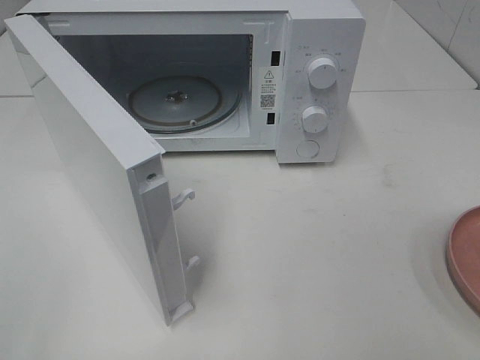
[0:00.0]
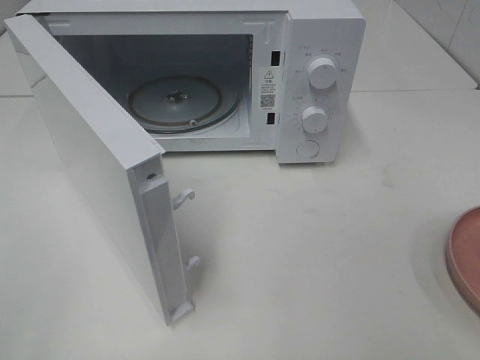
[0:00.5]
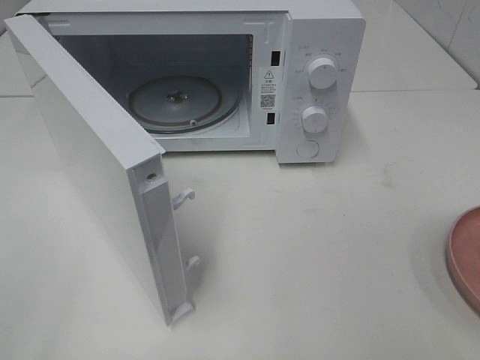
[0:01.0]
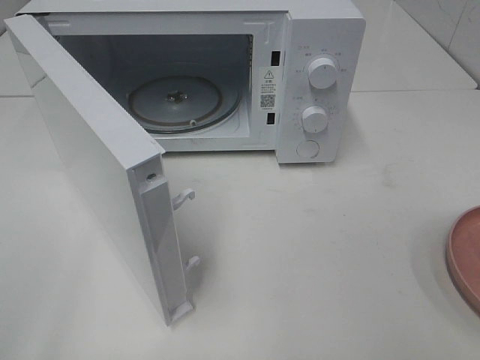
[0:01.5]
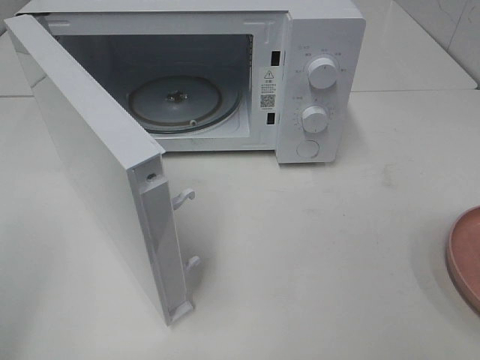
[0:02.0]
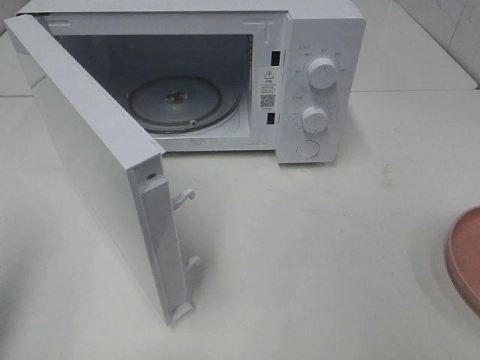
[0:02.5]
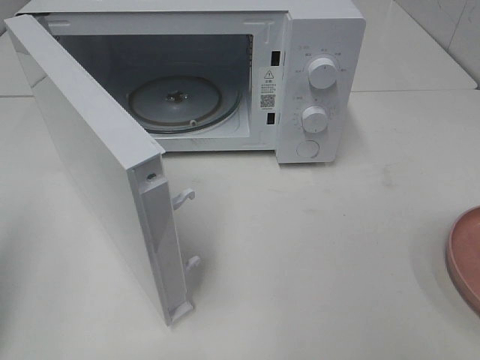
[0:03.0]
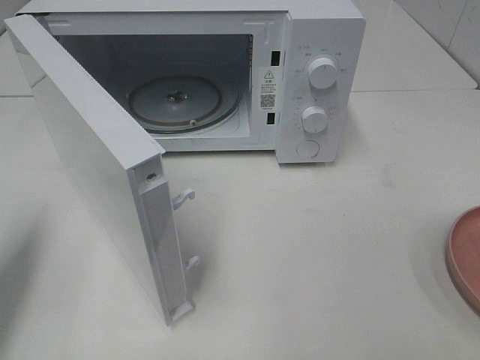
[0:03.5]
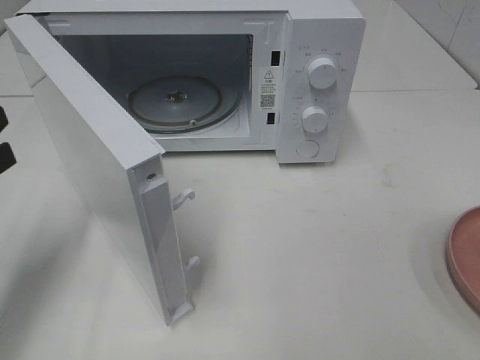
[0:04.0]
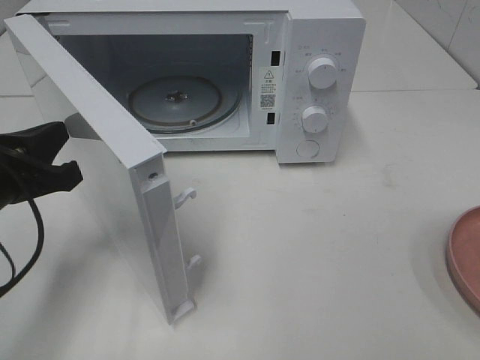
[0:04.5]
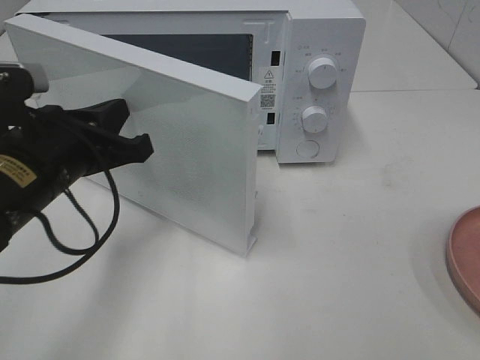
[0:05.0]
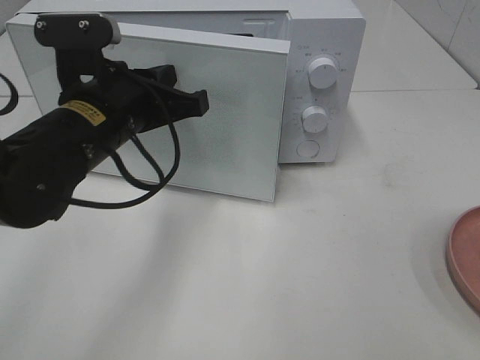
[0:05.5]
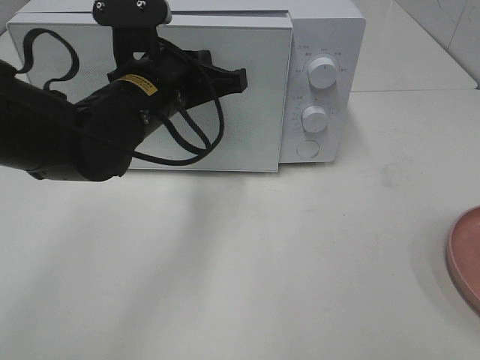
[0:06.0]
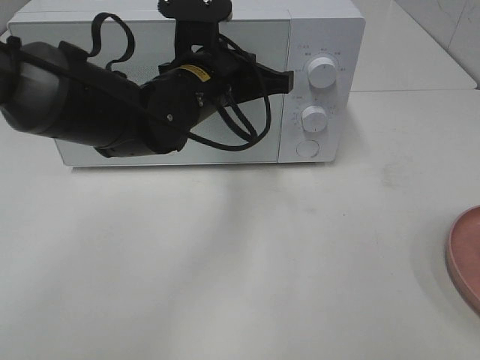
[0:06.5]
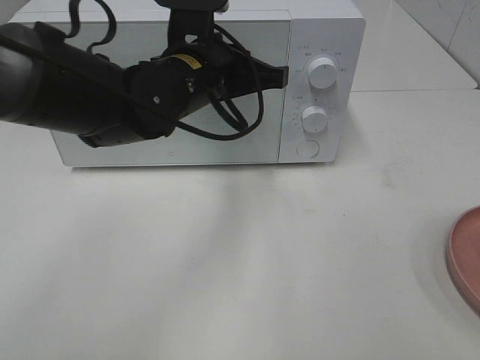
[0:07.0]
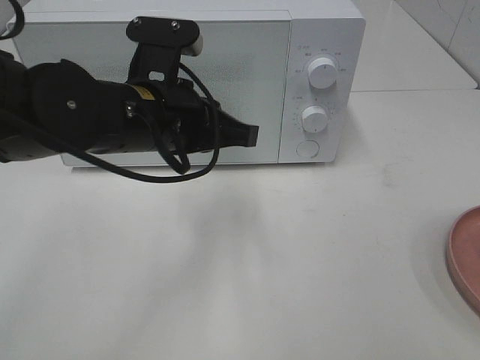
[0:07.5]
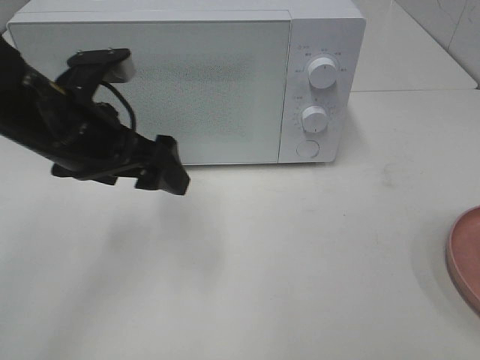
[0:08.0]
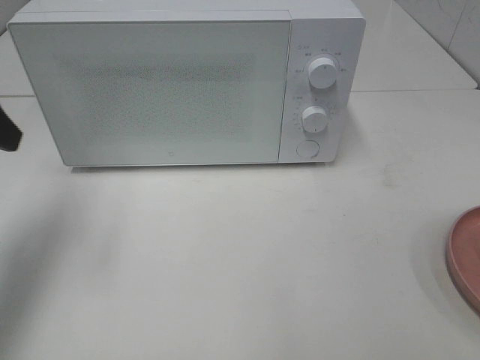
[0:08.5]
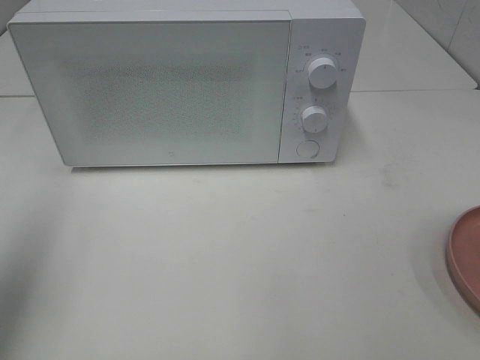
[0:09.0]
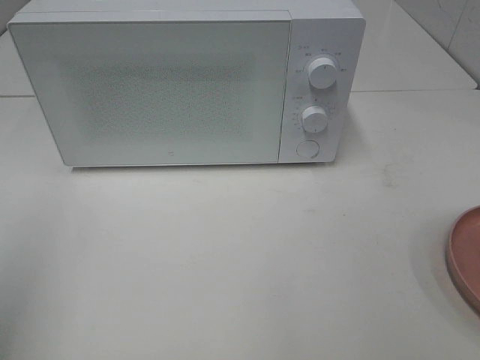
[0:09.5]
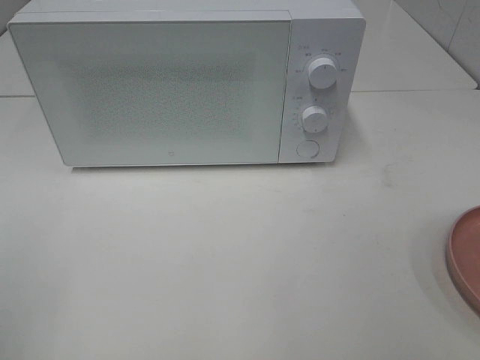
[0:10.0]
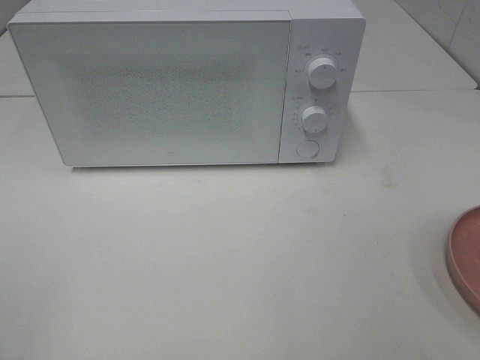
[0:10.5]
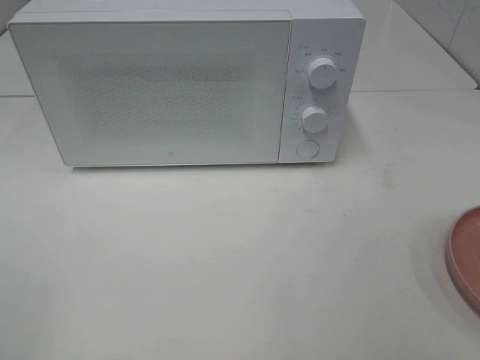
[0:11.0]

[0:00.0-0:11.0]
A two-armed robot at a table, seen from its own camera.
Task of the whole recording: Heat the burger.
Step, 0.0 to 7.0 s: Left hand: close the microwave door.
2.0 to 3.5 s: The left gripper is displaced forward and downward by some 15 cm, and closes its fingers.
3.5 to 5.5 s: The left gripper is displaced to the right and forward by approximately 20 cm.
7.5 to 9.0 s: The left gripper heads to the left, upward and backward, covering some 30 cm, and opens its fingers.
9.0 to 11.0 s: The left gripper is displaced backward by about 15 cm.

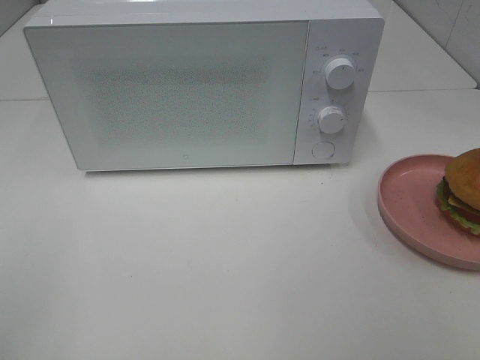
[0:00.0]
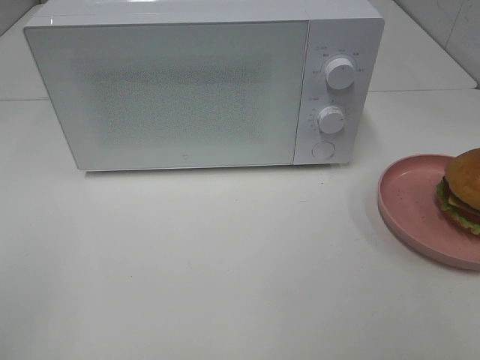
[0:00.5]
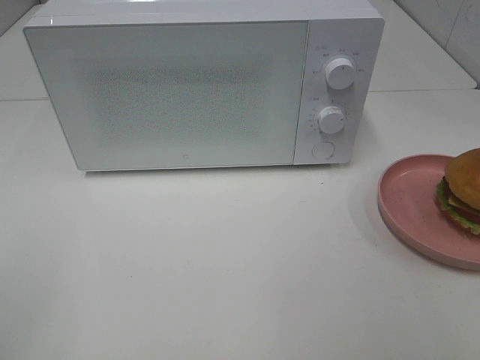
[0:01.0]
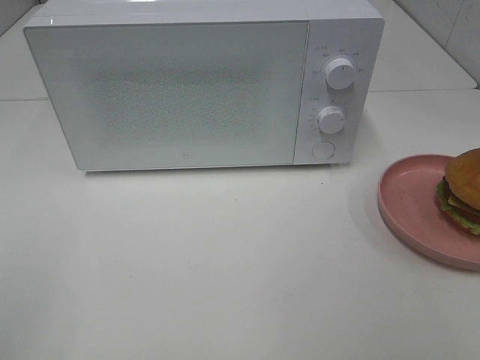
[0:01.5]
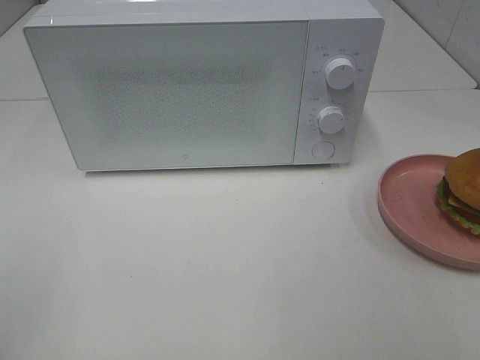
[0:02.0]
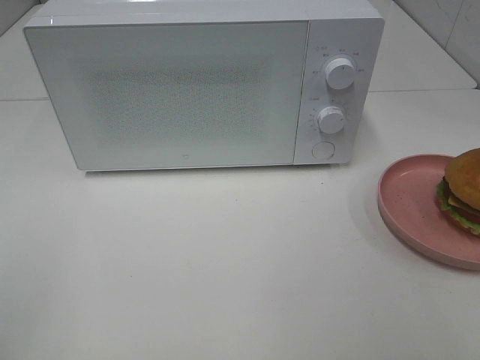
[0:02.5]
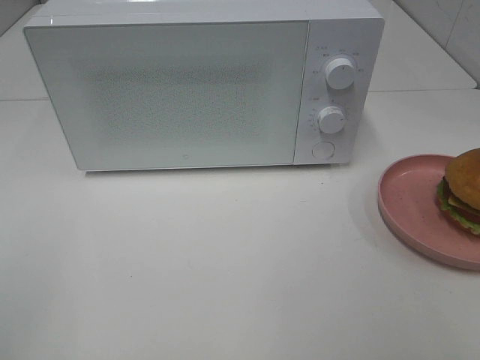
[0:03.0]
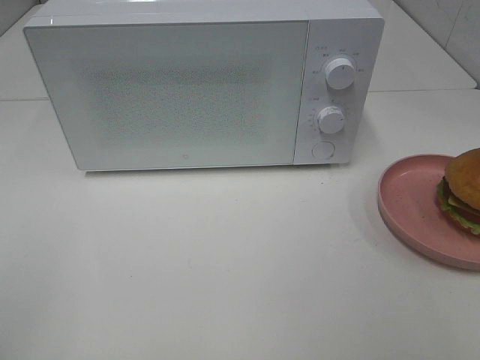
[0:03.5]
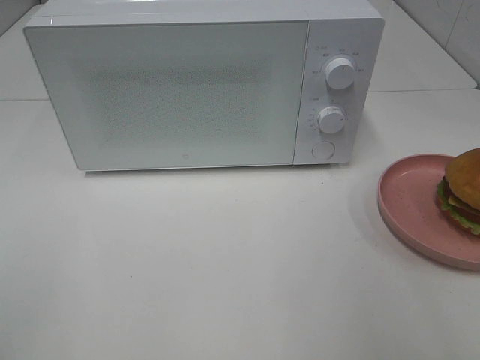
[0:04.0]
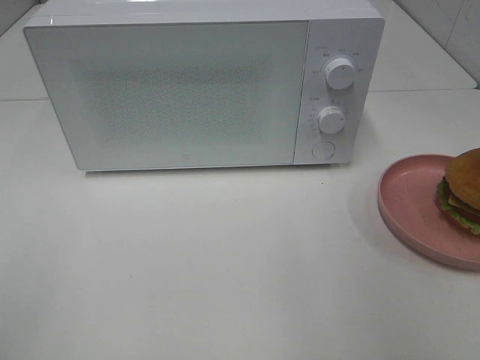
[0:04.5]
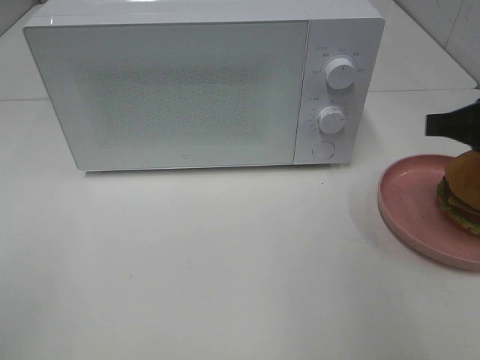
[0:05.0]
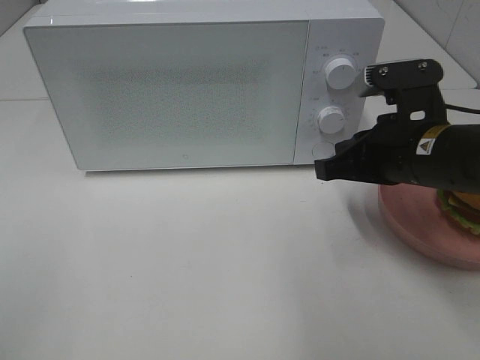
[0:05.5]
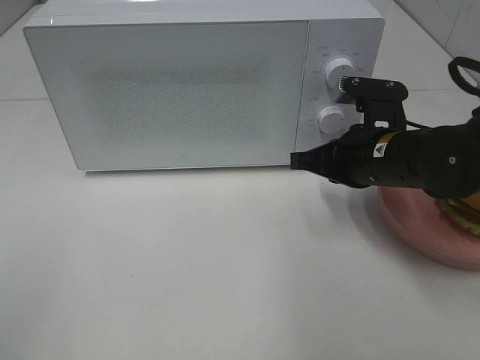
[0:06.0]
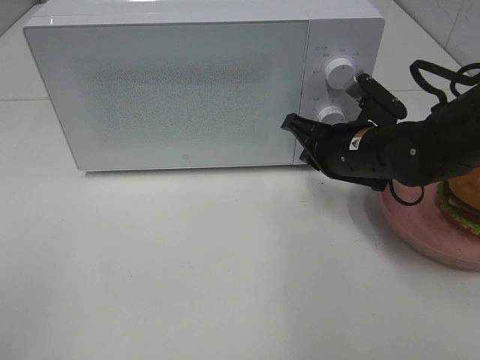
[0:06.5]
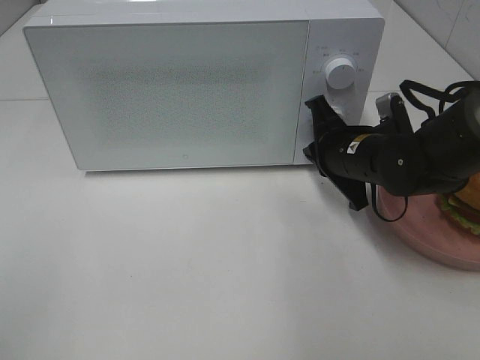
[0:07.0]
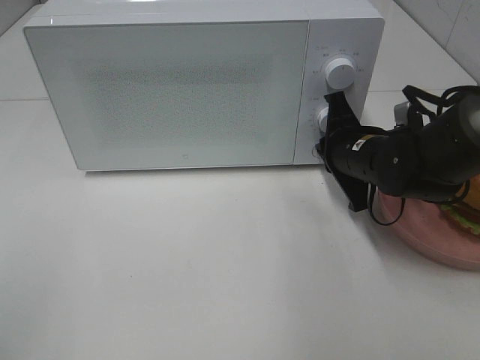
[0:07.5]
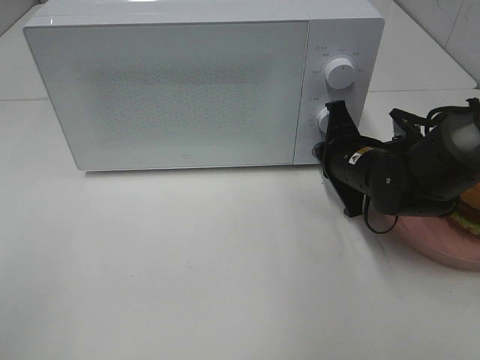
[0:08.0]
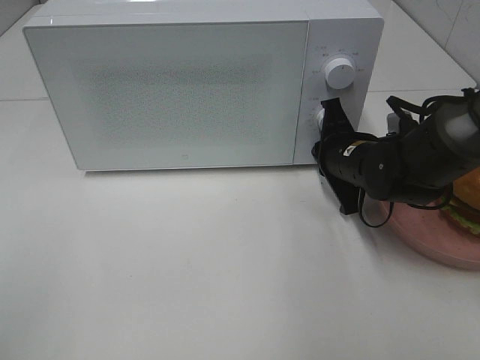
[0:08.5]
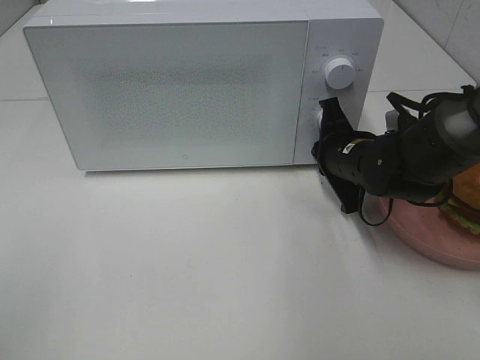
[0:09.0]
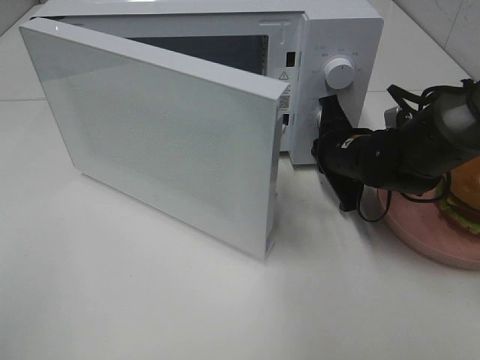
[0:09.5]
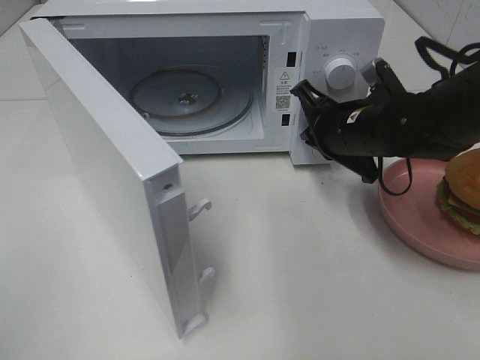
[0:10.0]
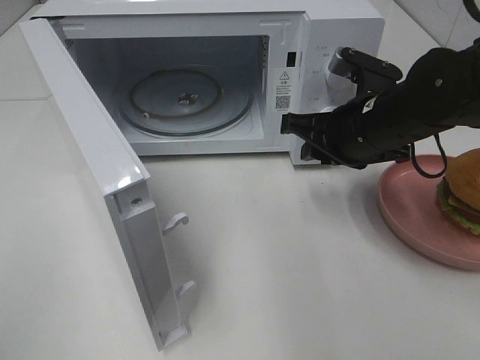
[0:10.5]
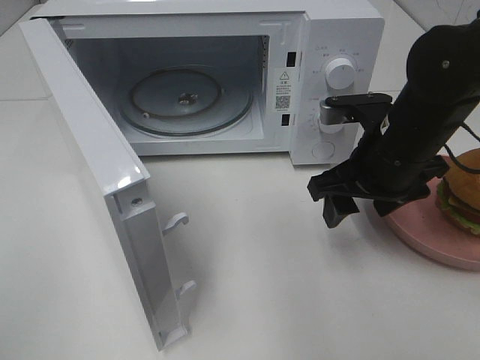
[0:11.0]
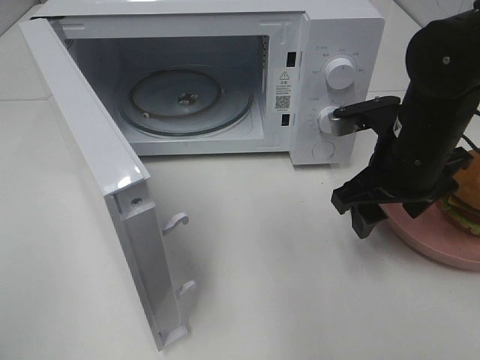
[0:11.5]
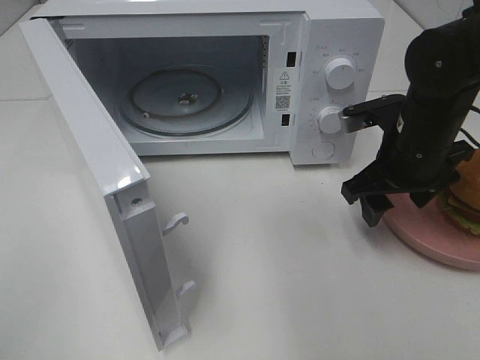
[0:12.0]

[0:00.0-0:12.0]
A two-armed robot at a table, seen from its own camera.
Task of the whole recording: Heat the burger.
Step, 0.0 to 9.5 s: Right hand: press the switch.
0.0 to 2.0 s: Both grippers stay put.
4.0 to 6.0 s: The right gripper moves forward, downward and to the left, roughly 30 cm, and closes.
6.0 to 8.0 s: The right gripper shifts by approximately 5 cm.
8.0 to 10.0 s: The right gripper shifts approximately 5 cm upward.
10.0 to 12.0 s: The right gripper moves roughly 5 cm, and opens its fingers.

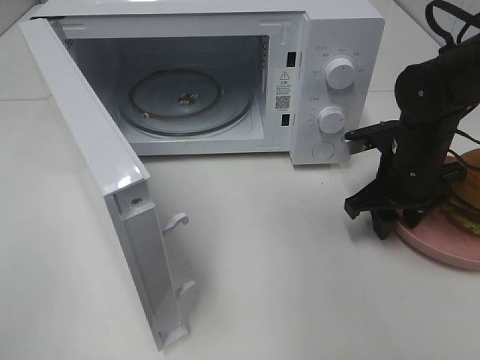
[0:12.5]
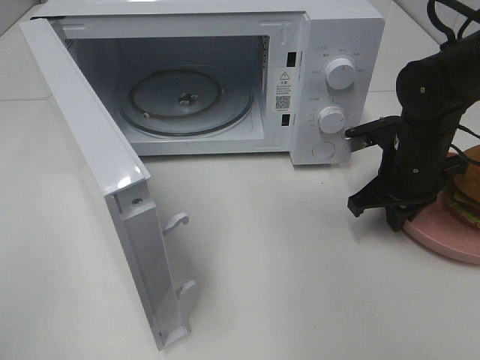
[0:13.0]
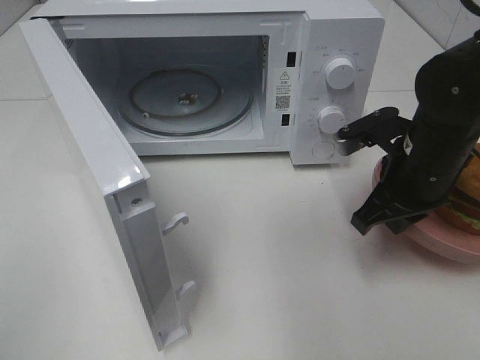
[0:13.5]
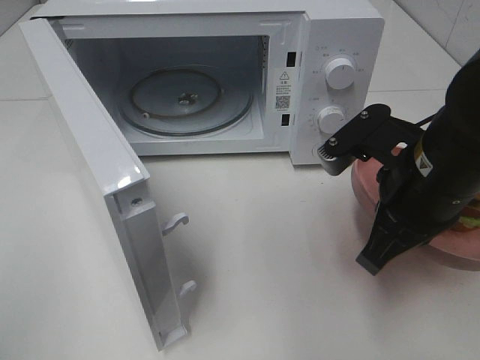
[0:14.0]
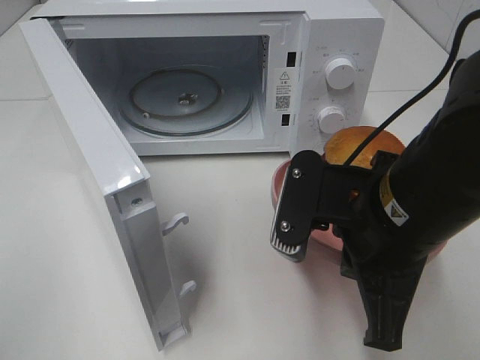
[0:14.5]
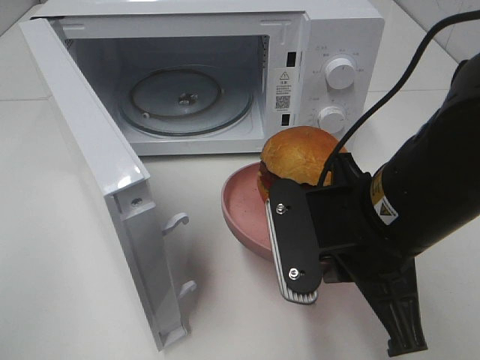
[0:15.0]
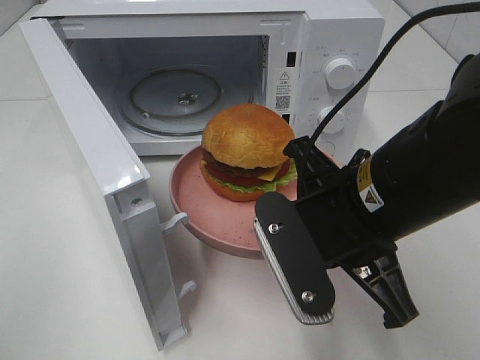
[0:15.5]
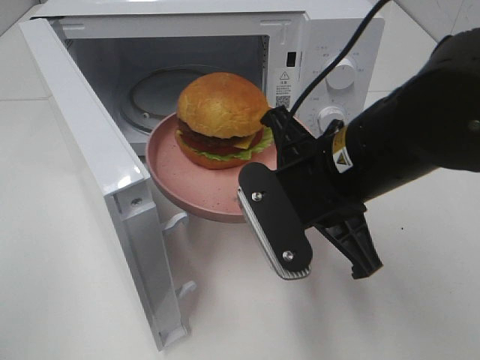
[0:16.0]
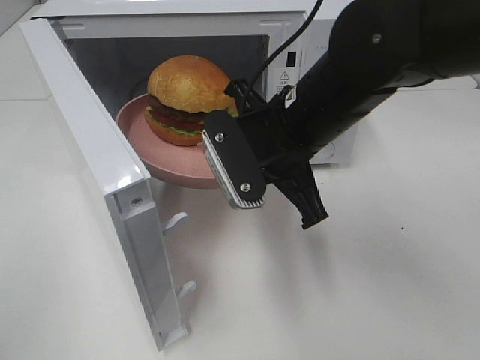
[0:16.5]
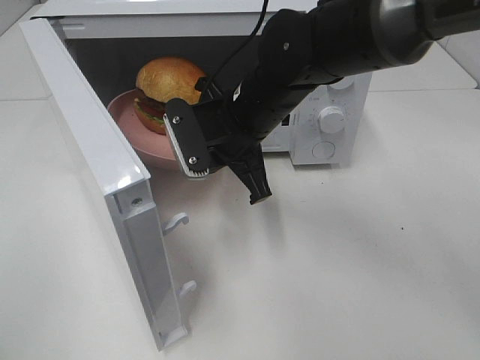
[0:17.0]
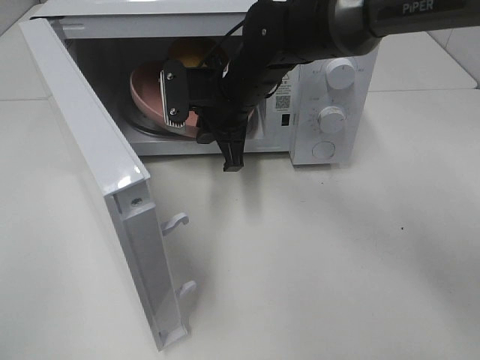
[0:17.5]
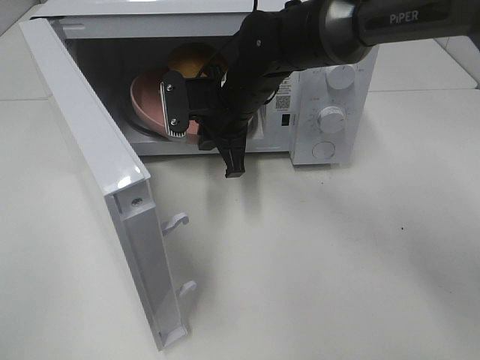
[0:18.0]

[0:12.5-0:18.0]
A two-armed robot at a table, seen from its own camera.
Task of the whole recording: Heat the burger.
12.5 to 14.5 s: The right gripper goes approximately 20 cm backward, to the left and upward, and closes up.
14.5 to 16.0 s: The right gripper changes place by approximately 5 cm.
16.0 to 18.0 s: The right gripper goes some 20 cm forward and to the left.
